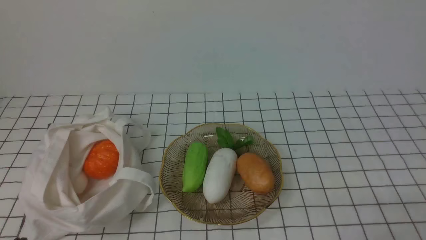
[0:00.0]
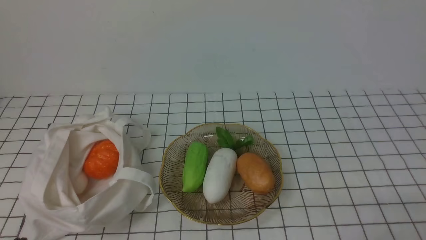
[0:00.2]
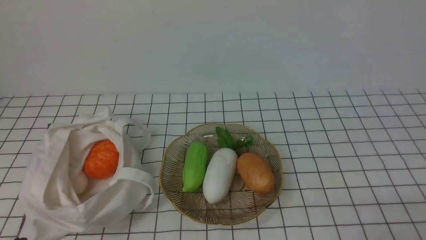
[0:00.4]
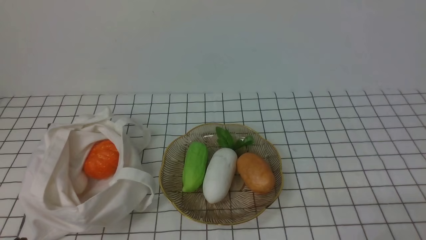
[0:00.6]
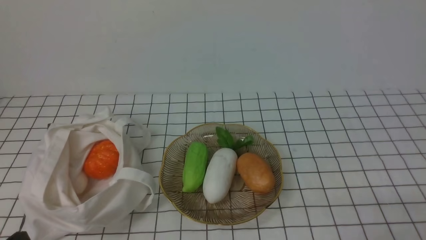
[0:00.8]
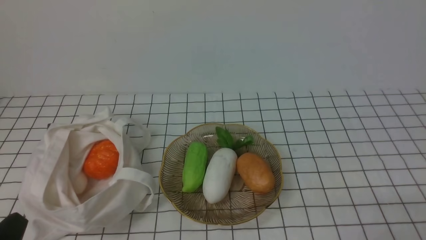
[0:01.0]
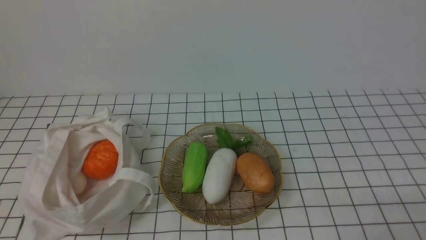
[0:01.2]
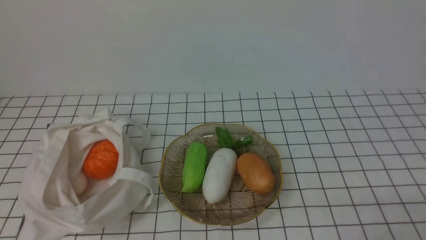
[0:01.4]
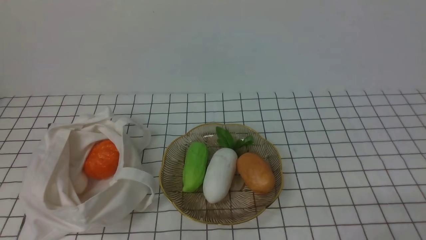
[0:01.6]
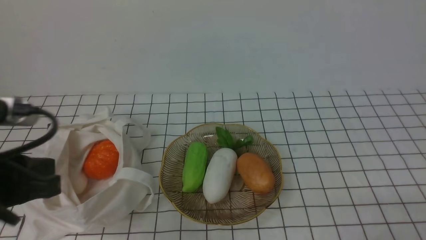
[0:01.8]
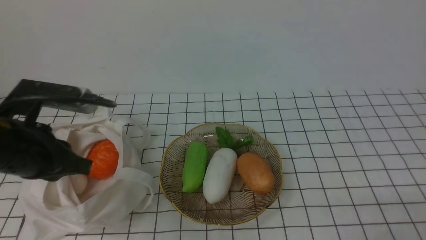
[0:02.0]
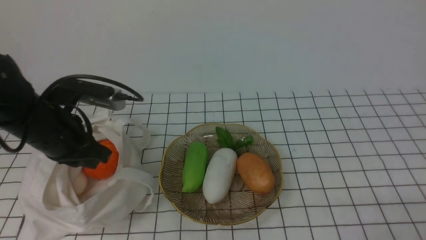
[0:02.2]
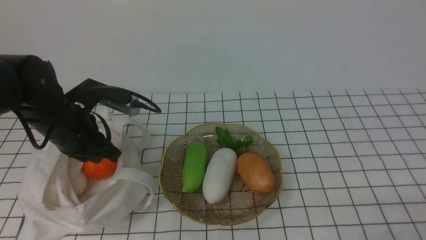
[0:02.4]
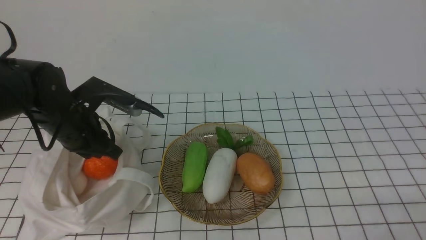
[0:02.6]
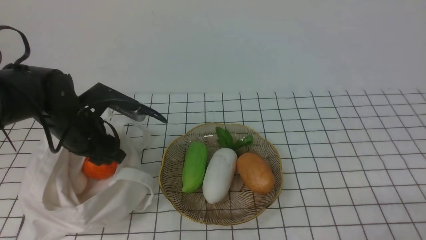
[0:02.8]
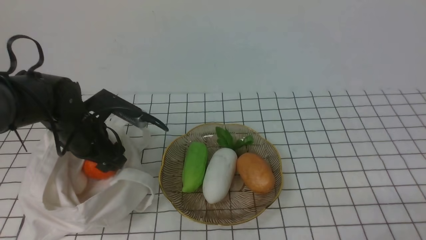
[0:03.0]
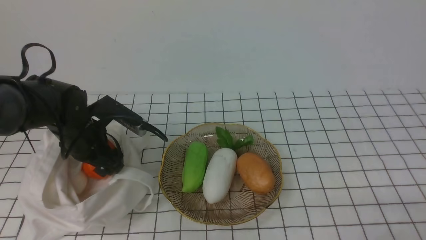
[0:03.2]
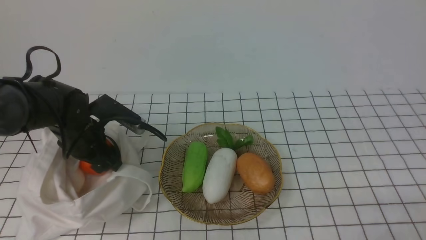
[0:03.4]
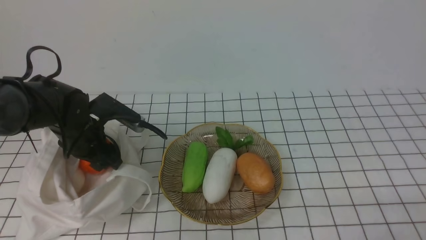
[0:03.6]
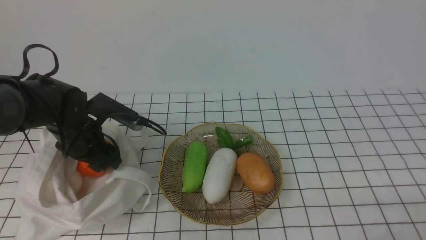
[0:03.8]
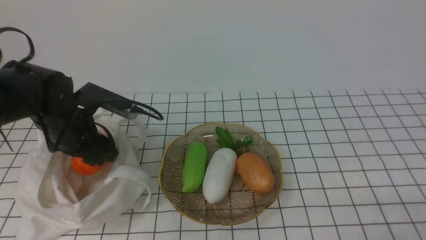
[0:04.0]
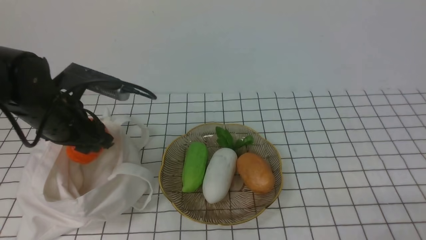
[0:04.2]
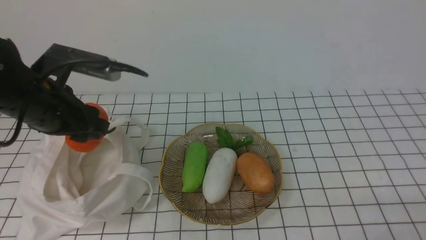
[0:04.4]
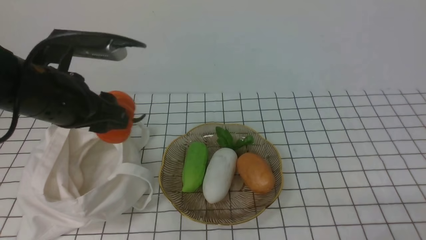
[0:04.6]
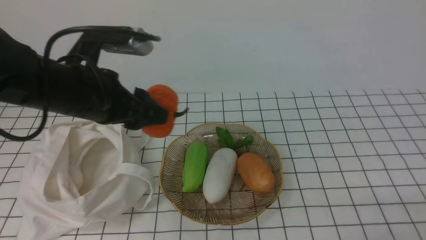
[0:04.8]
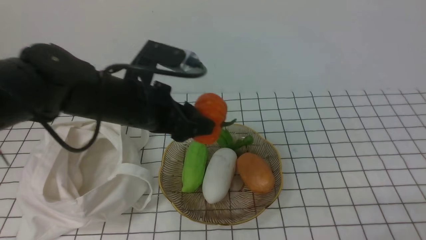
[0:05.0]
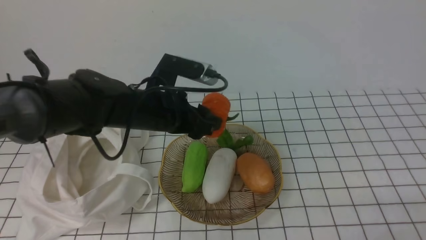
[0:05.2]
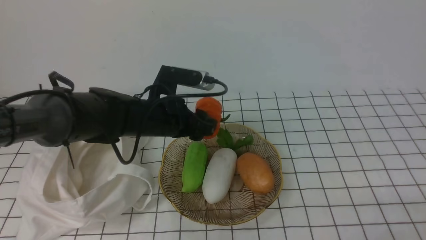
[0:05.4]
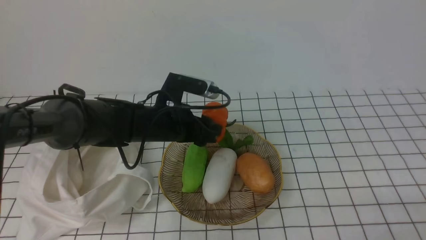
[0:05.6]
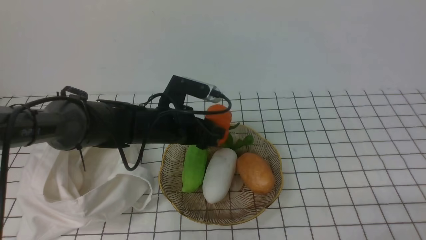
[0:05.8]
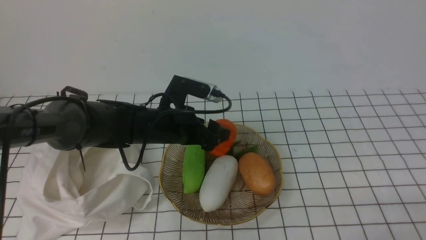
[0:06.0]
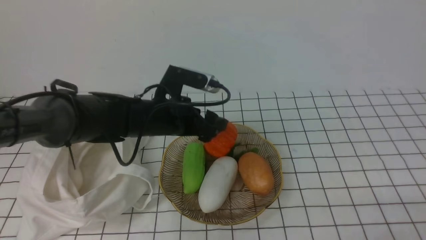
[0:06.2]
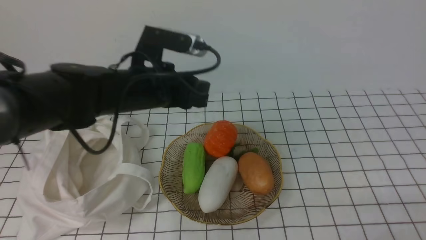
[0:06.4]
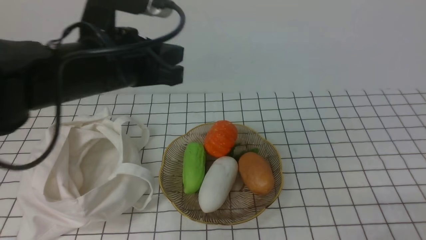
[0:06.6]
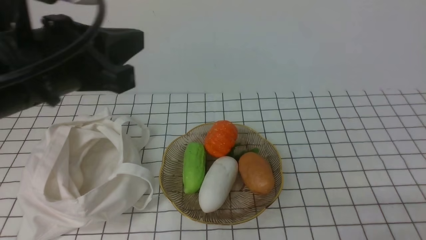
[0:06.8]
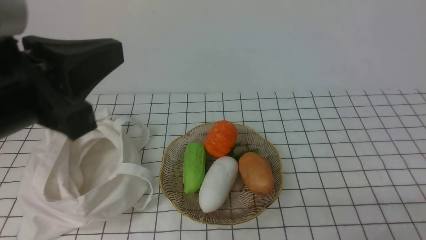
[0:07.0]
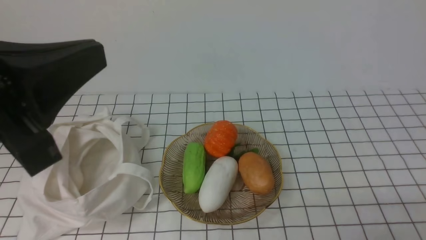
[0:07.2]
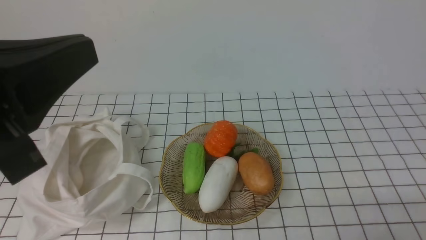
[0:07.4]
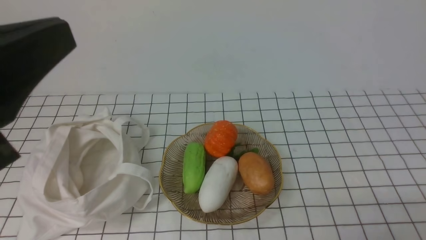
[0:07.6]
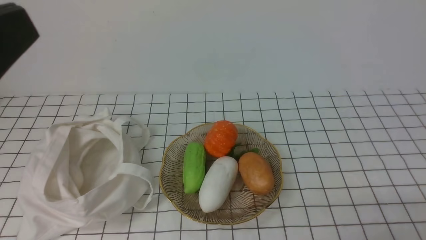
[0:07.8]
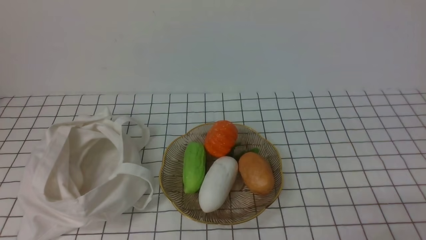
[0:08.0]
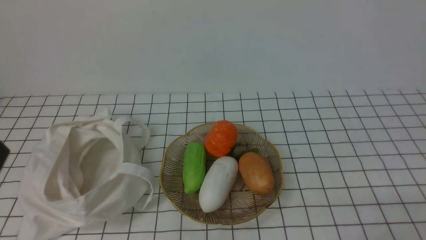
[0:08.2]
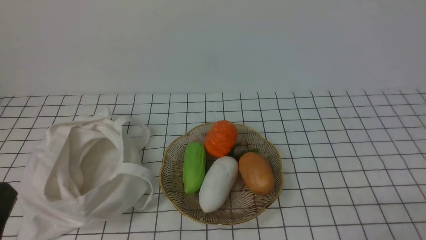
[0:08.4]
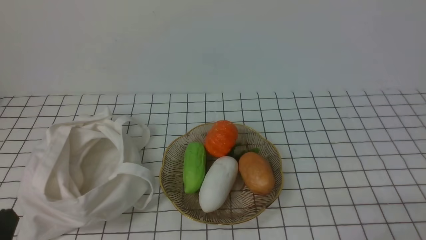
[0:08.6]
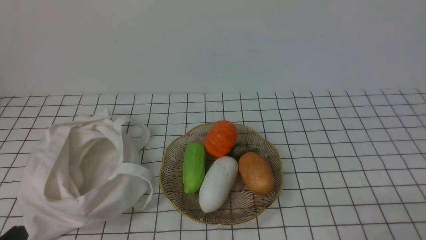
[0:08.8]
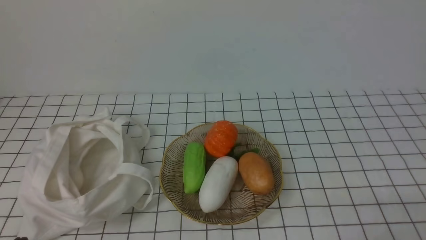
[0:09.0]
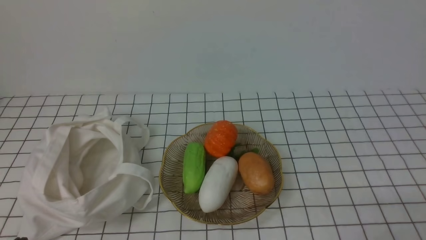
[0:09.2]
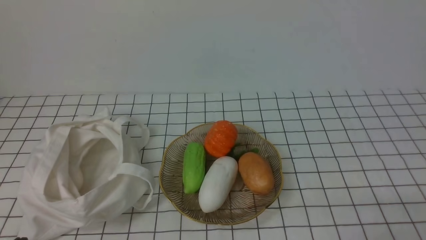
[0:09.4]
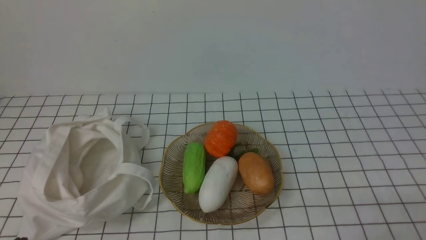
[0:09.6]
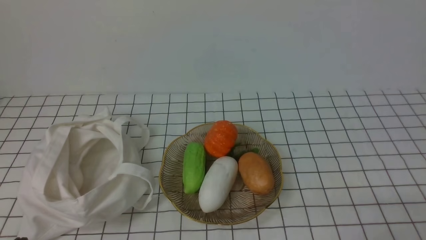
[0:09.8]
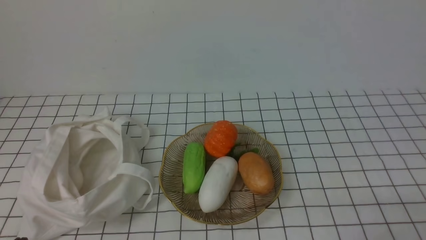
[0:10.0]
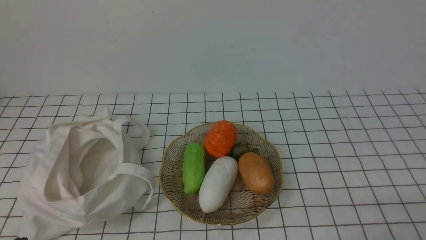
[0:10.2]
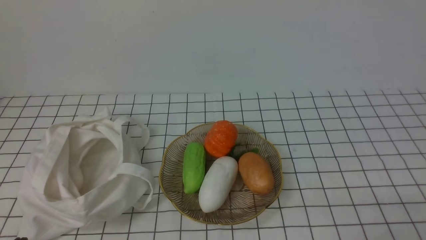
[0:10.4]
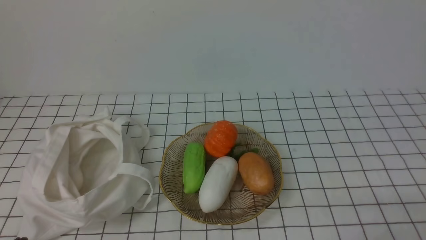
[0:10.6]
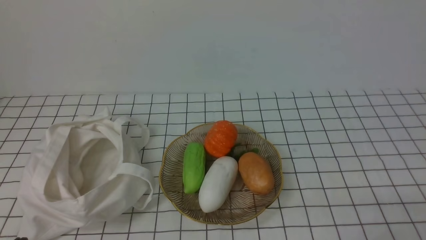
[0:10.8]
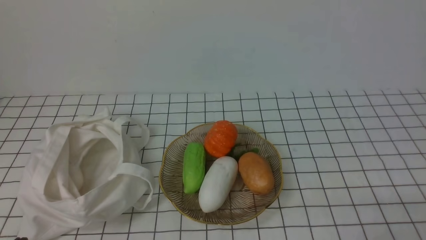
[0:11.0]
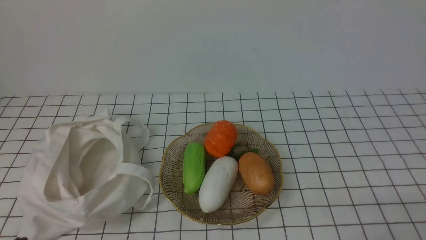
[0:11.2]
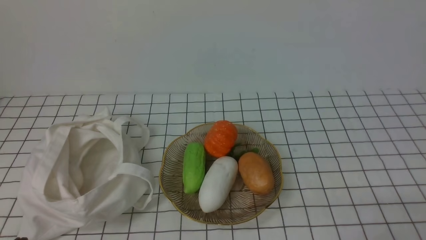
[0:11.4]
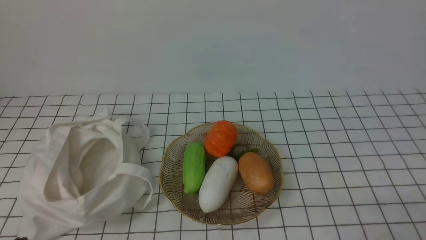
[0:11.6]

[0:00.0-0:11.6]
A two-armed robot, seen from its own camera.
Task of the whole recording: take vegetables from bag on white checkered tablecloth place on plate.
Step, 0:00.0 to 0:03.8: Grasp the pumpkin with left gripper.
Step, 0:04.0 to 0:06.2: Place the pumpkin on the plate with left gripper.
0:01.4 to 0:02.8: The left gripper travels forward by about 30 cm, and opens up.
0:02.8 to 0:04.4: The left gripper moves upward, some 10 cm.
0:04.4 to 0:05.8: The left gripper moves to the right, downward and forward, approximately 20 cm.
0:05.8 to 0:07.2: The left gripper travels backward, upward and to the left by roughly 35 cm, and closes.
0:07.2 to 0:08.8: The left gripper moves downward, approximately 20 cm.
0:10.2 to 0:11.6: The two grippers keep their place.
